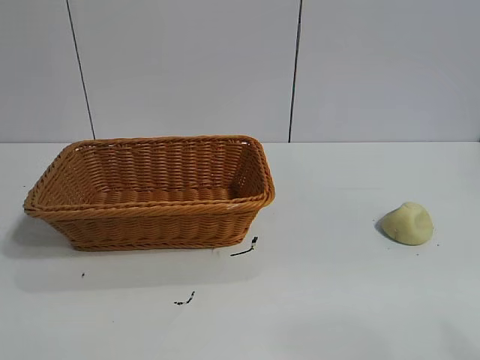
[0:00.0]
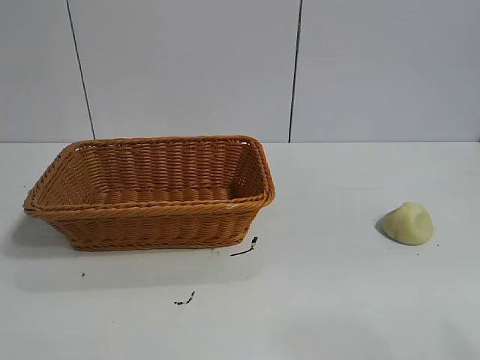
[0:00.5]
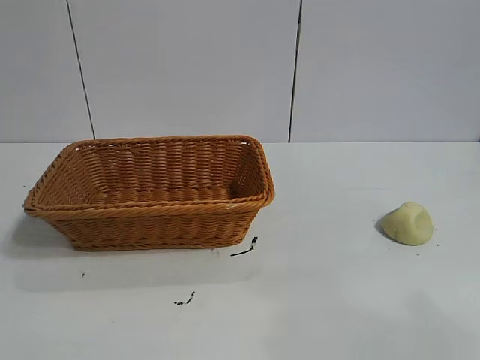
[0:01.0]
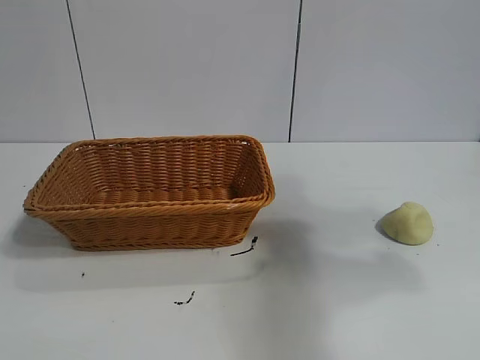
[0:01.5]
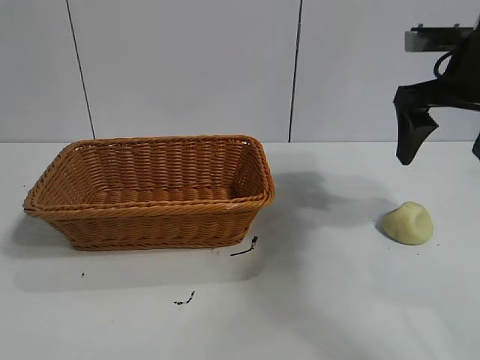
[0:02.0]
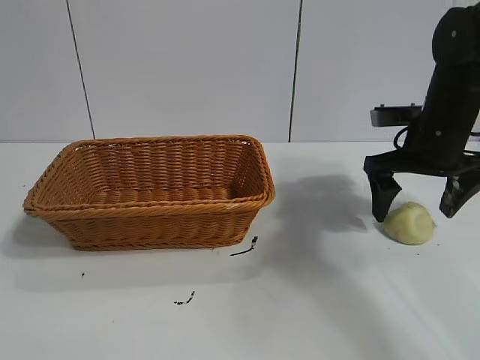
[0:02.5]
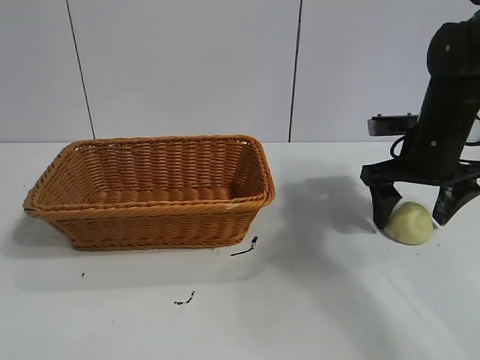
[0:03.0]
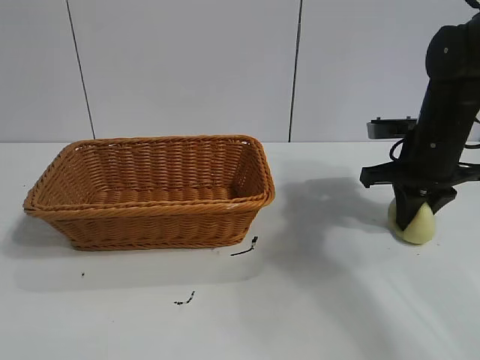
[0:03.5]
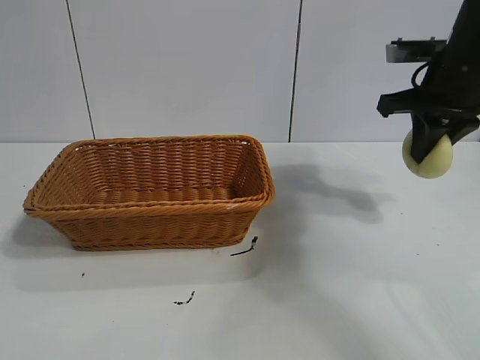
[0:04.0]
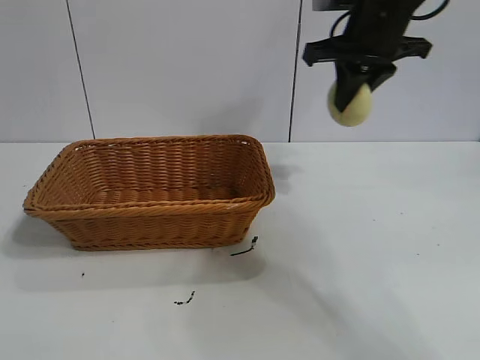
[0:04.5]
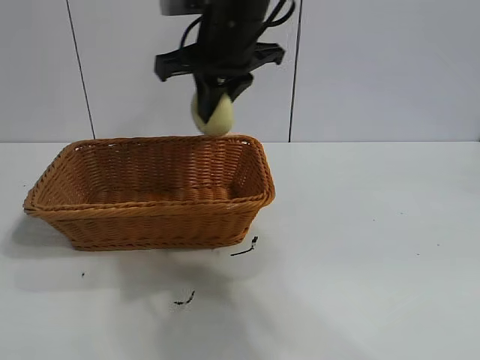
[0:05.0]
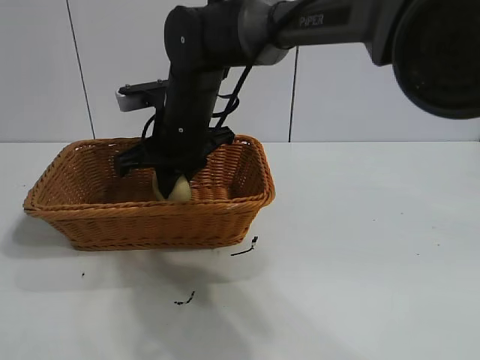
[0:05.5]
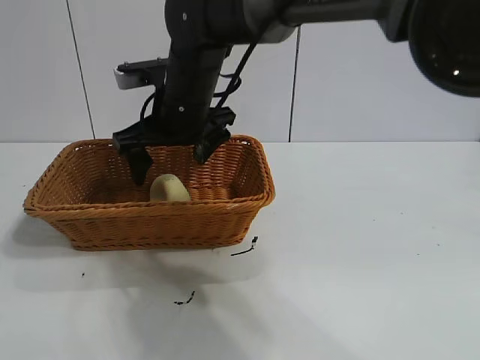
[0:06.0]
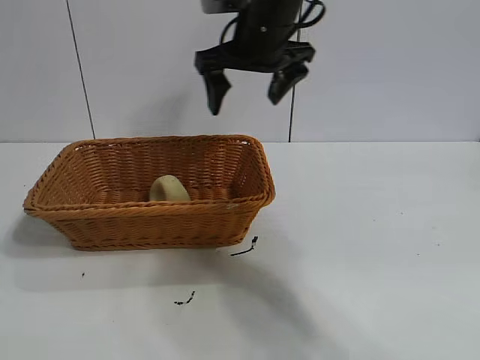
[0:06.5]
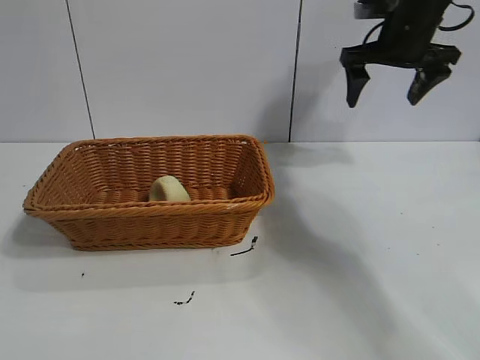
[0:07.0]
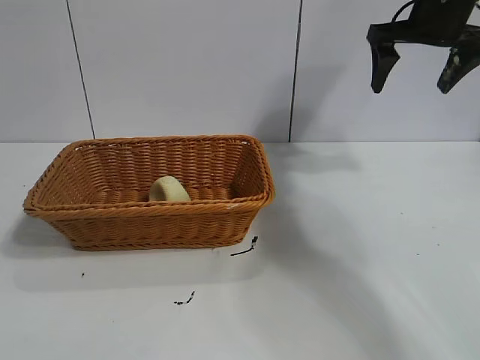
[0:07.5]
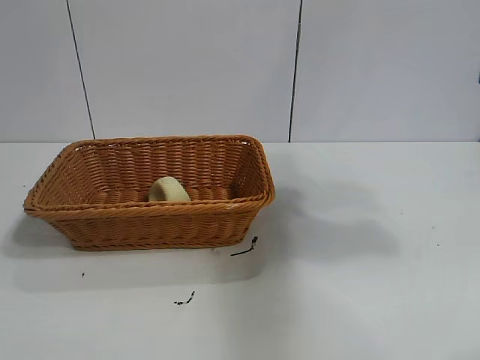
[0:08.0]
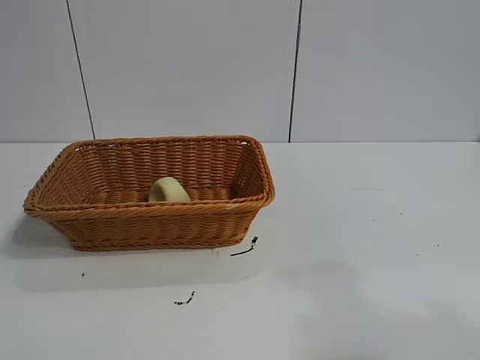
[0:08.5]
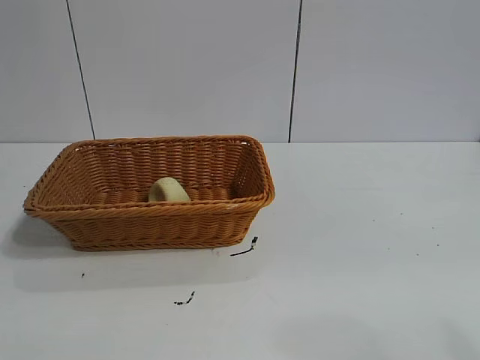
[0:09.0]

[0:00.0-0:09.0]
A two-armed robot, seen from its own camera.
Task of the whole recording: pick up the egg yolk pastry and put it into the basket.
Step, 0:01.0 to 0:03.5: Grasp egg yolk pastry with right gripper.
Step, 0:04.0 to 0:05.5: Place the egg yolk pastry in the basket with right gripper.

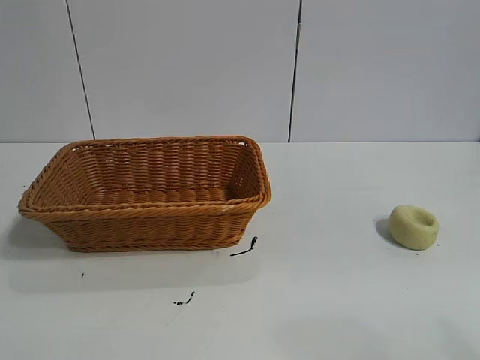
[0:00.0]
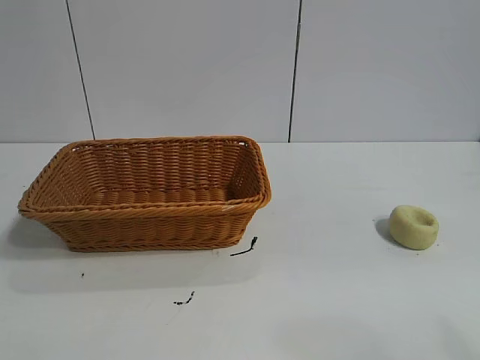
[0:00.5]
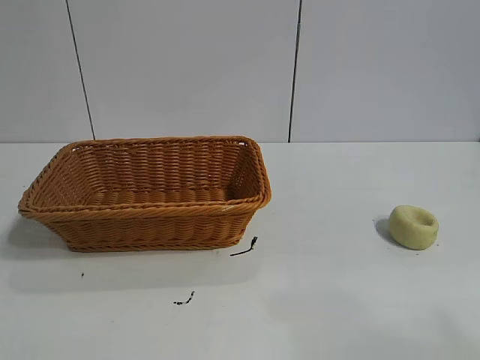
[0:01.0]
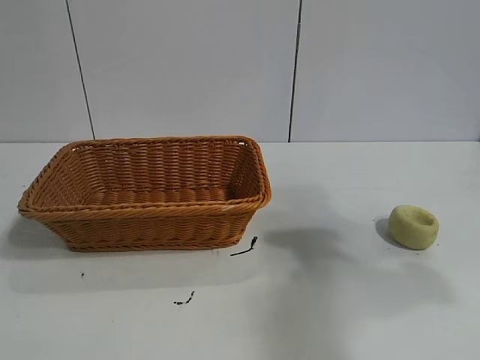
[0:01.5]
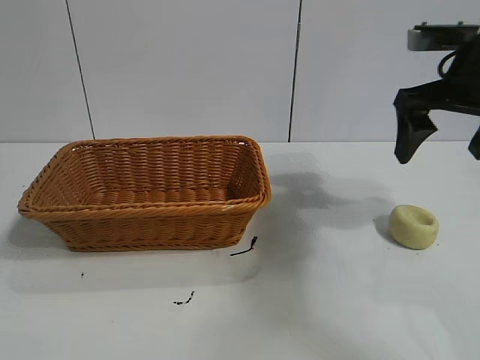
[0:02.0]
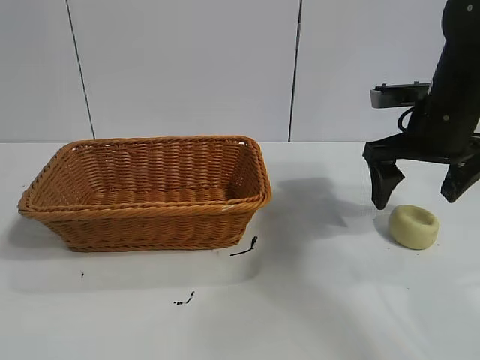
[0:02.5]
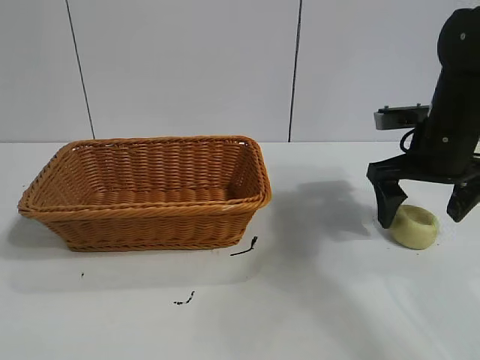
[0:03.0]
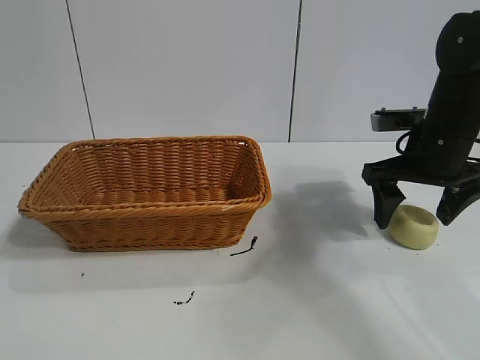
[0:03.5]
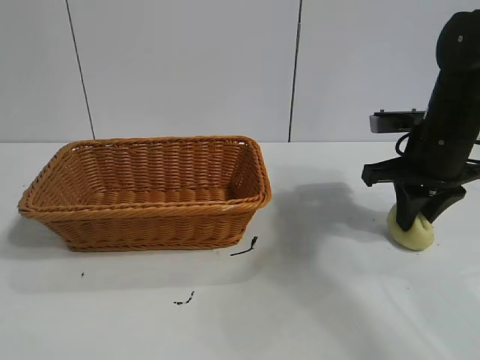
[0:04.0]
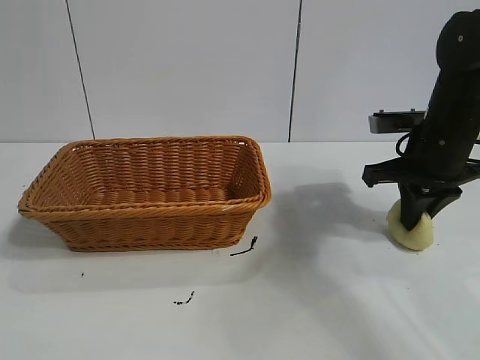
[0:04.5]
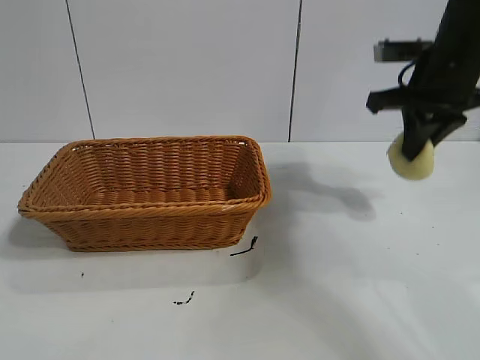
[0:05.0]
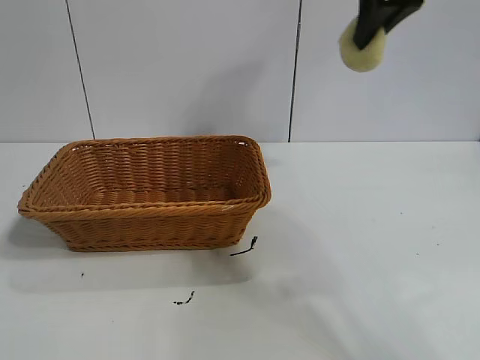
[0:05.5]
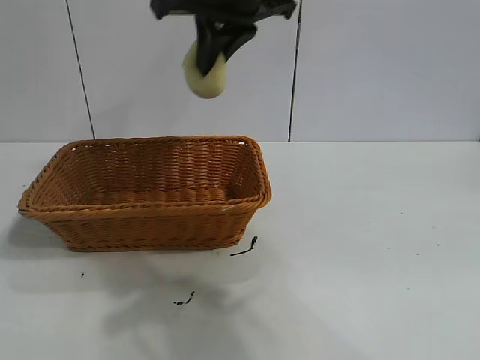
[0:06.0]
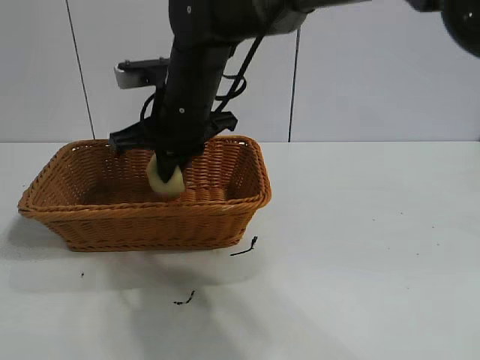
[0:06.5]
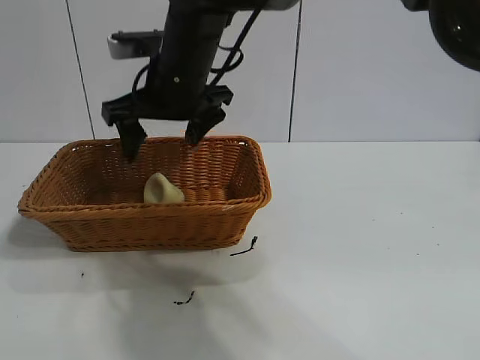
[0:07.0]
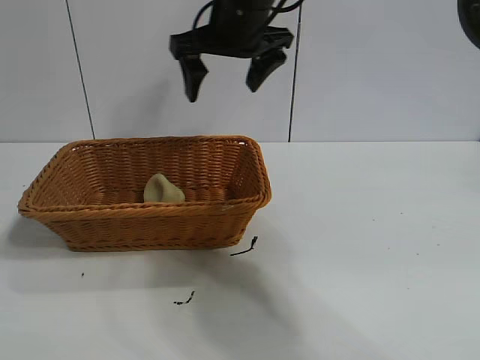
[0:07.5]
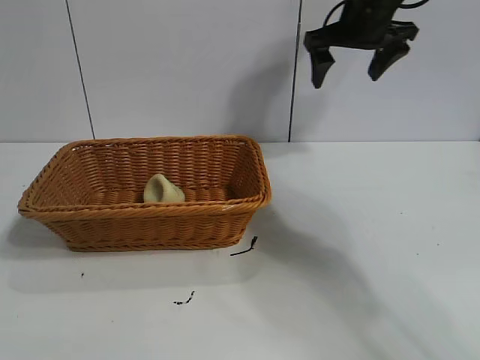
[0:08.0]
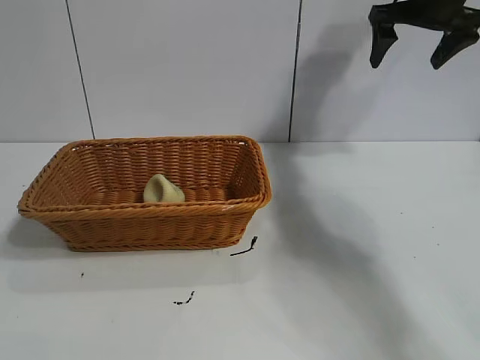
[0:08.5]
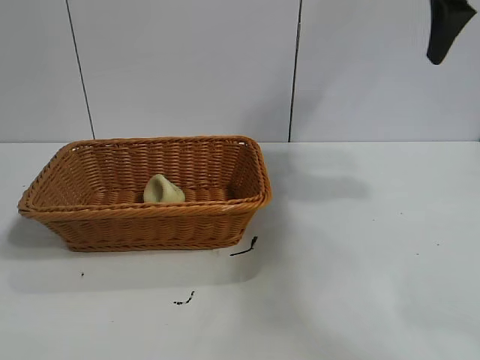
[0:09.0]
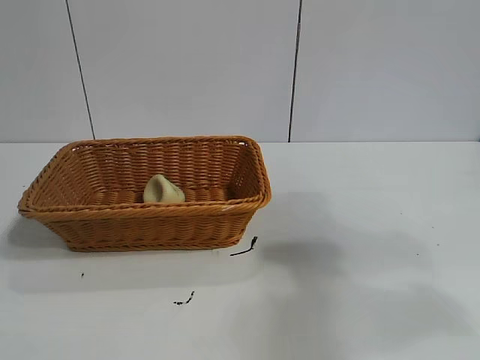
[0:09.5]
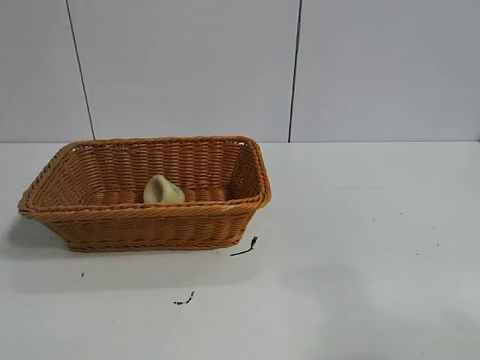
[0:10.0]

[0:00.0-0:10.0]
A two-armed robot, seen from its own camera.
Task of the whole recording: pick up the egg yolk pastry and put it into the basket.
Step, 0:01.0 to 0:04.0: Grasp egg yolk pastry with right gripper.
Step, 0:04.5 to 0:06.5: Place the egg yolk pastry in the basket with right gripper.

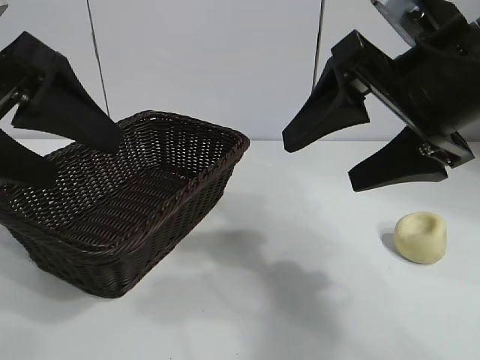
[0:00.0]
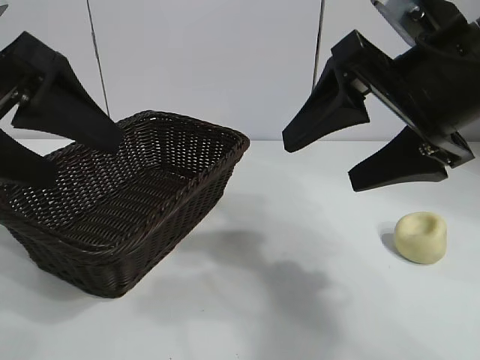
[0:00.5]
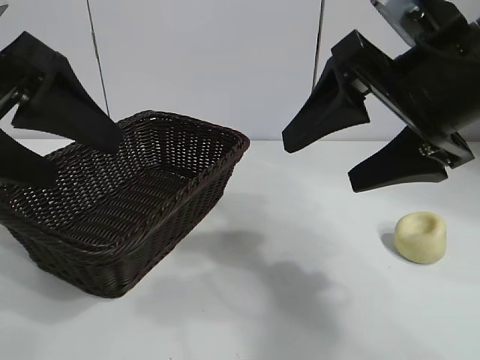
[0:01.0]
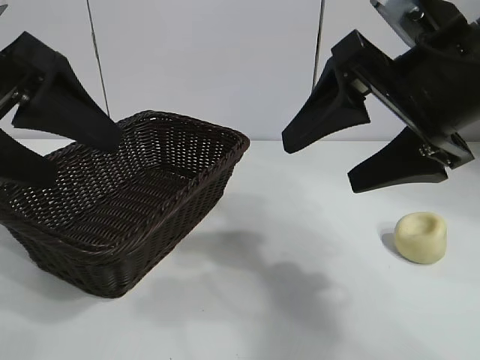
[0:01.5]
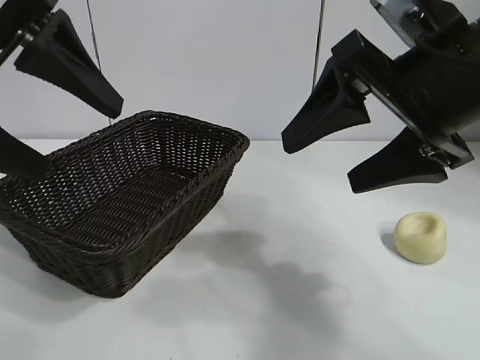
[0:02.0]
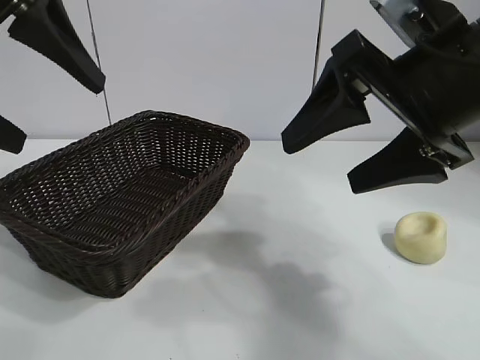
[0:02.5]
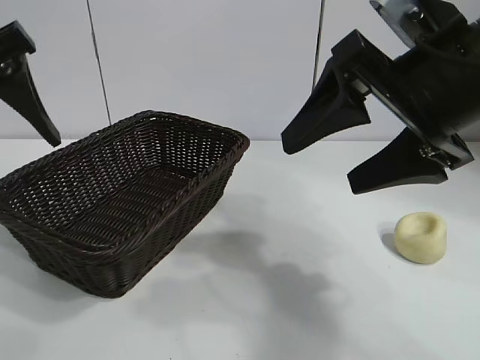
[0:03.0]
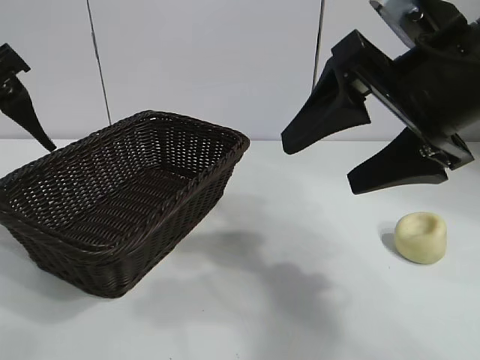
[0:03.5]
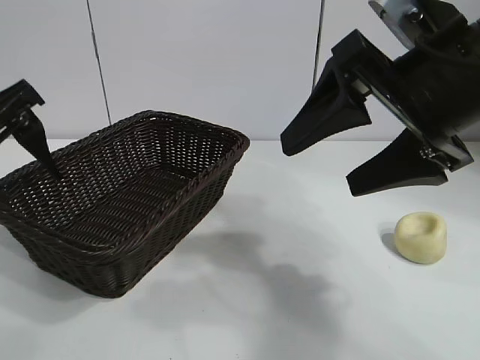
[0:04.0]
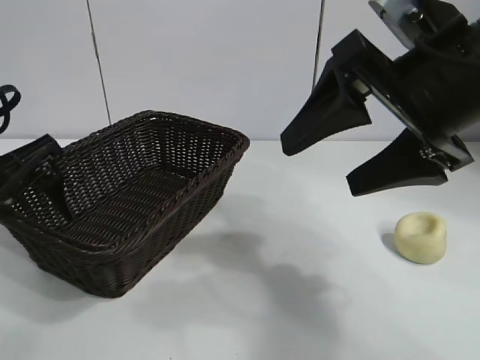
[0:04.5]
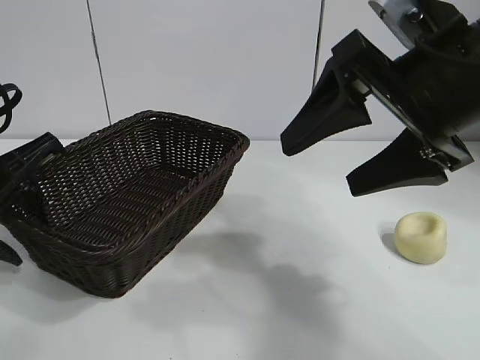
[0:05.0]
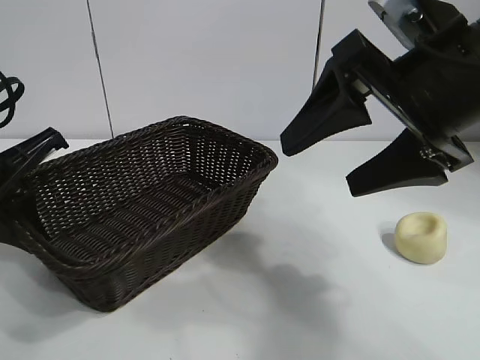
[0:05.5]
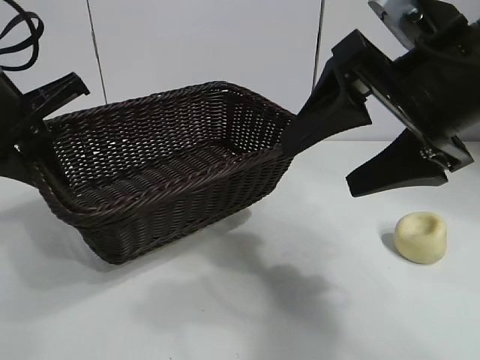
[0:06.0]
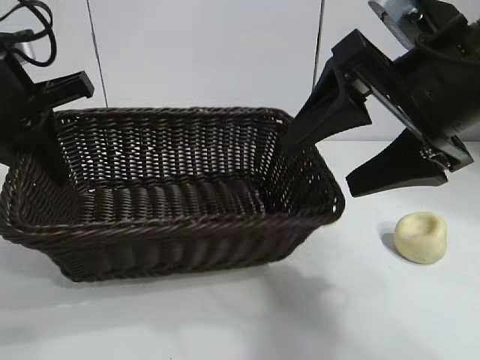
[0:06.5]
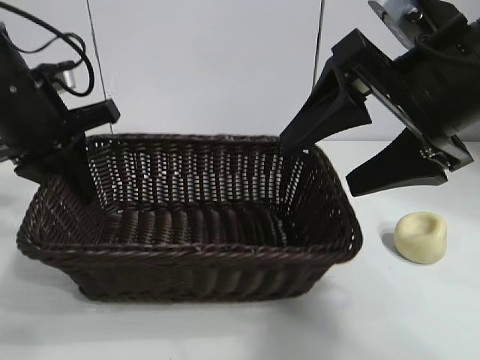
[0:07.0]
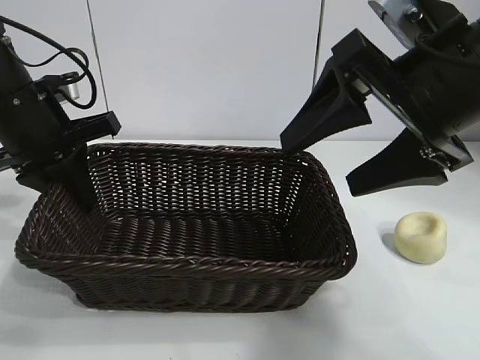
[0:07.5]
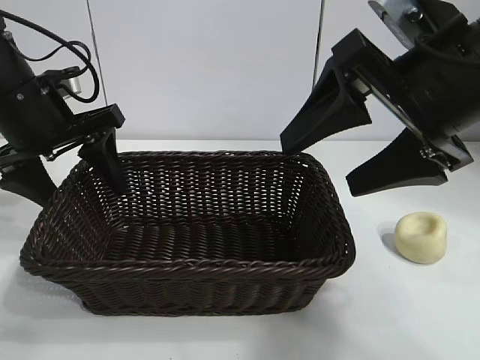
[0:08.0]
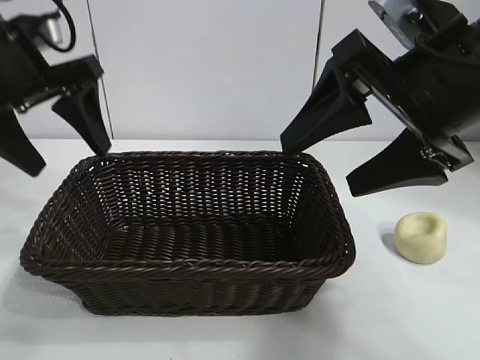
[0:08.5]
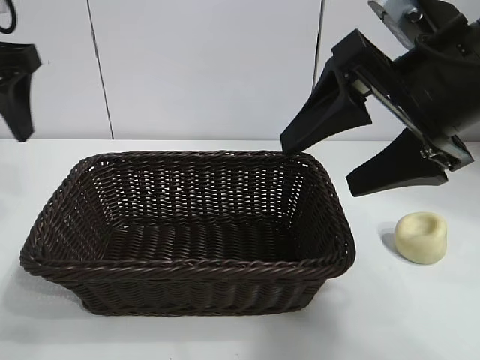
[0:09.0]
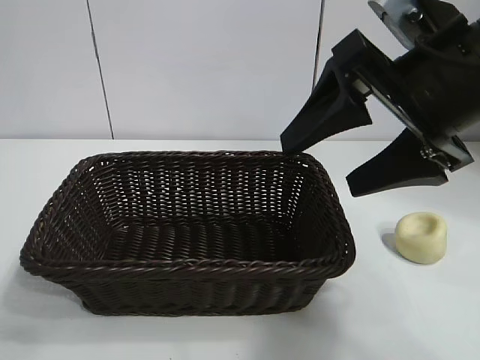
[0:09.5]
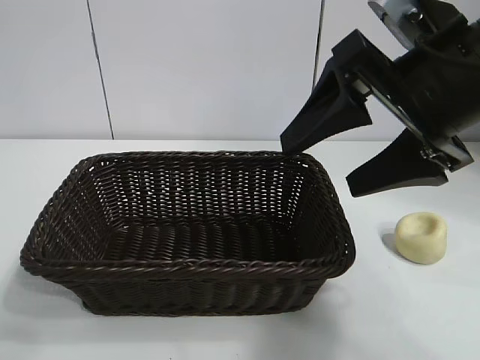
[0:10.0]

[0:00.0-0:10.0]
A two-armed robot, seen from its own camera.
Task of the whole recording: pick up the egg yolk pastry and put it into the basket.
Step, 0:02.0 to 0:05.0: Grasp the basket with left gripper.
Step, 0:05.5 to 0:08.0: Place the basket in the center of view with left gripper.
